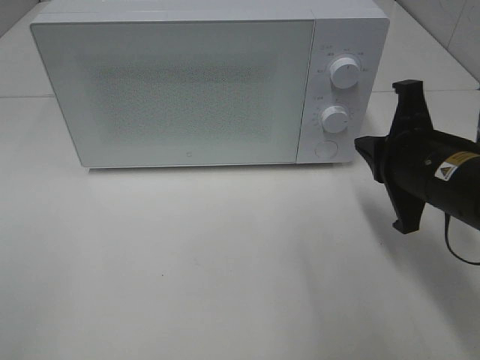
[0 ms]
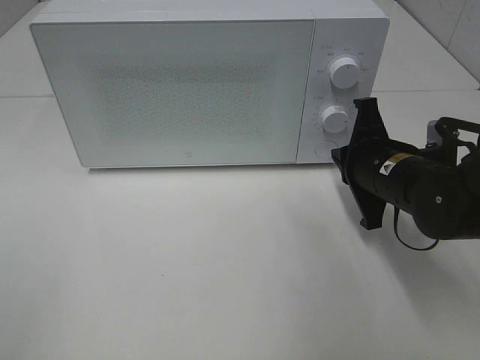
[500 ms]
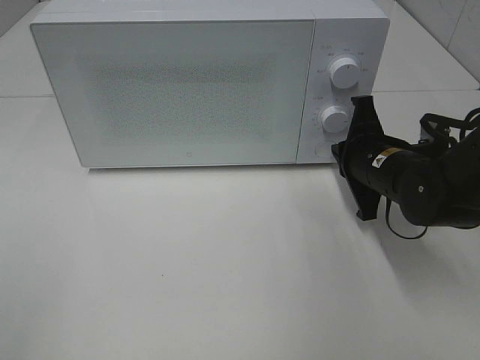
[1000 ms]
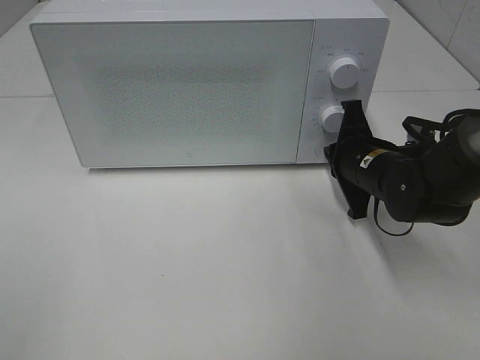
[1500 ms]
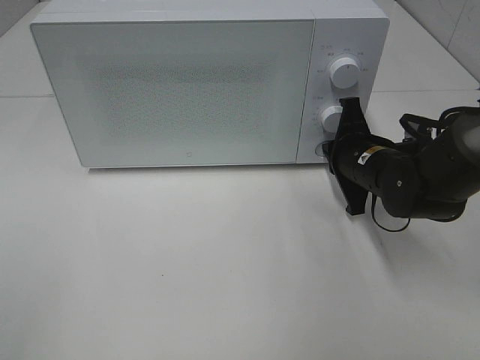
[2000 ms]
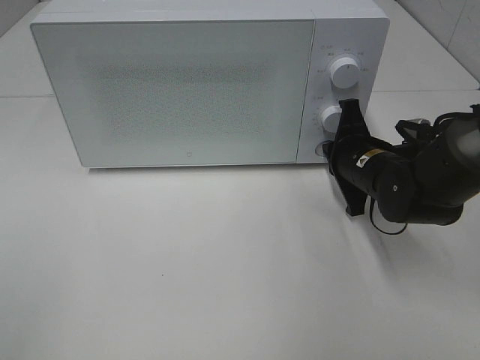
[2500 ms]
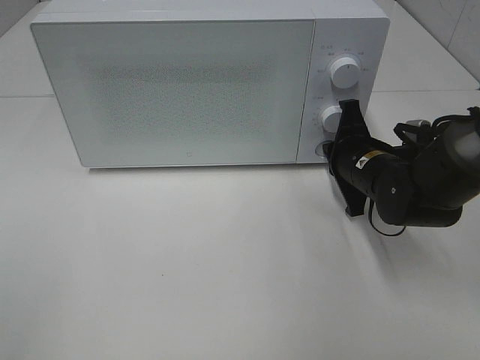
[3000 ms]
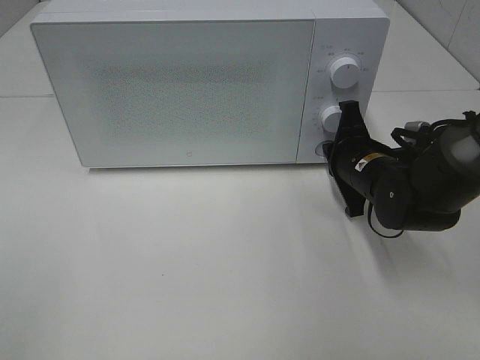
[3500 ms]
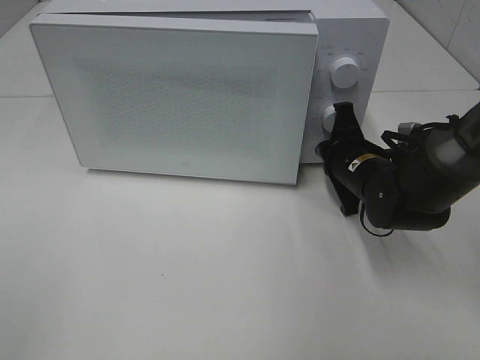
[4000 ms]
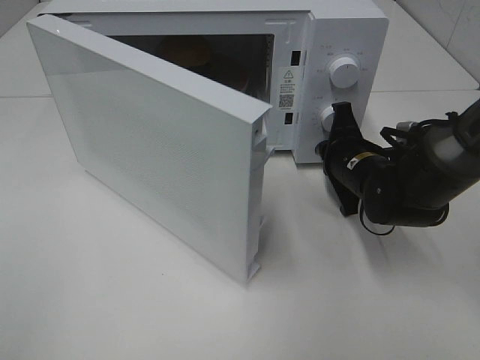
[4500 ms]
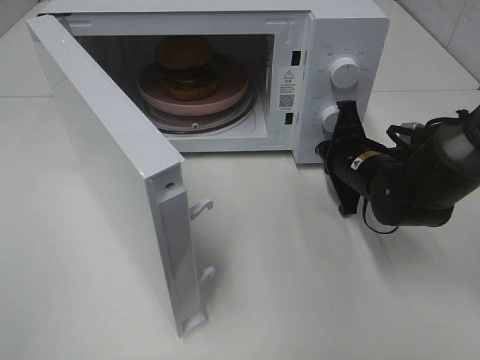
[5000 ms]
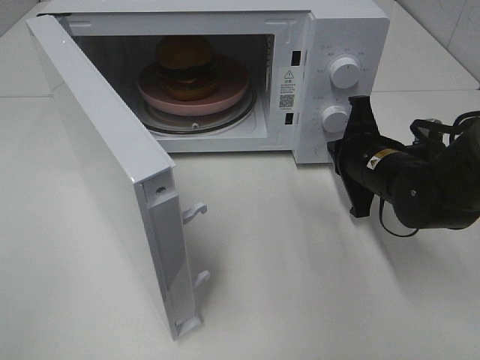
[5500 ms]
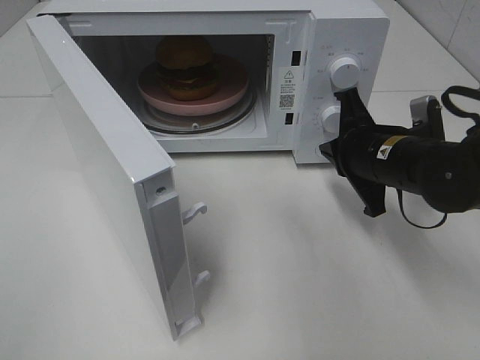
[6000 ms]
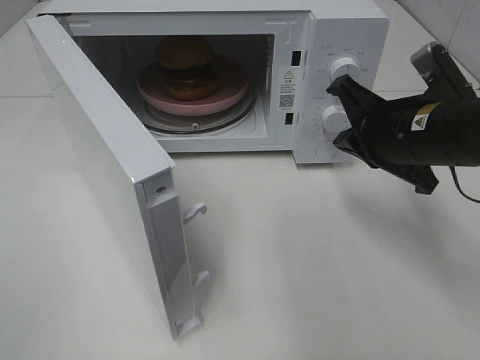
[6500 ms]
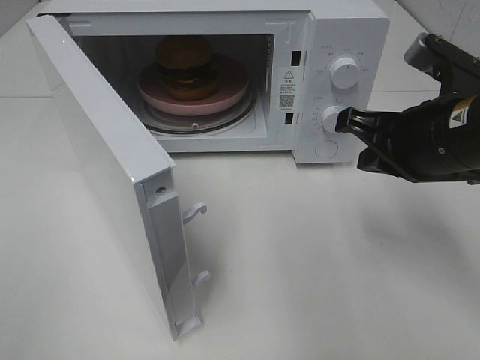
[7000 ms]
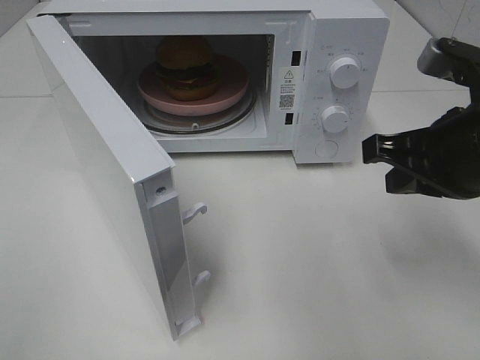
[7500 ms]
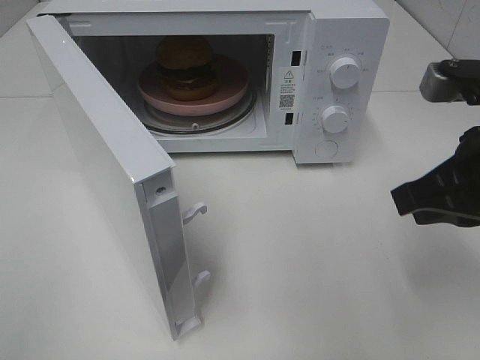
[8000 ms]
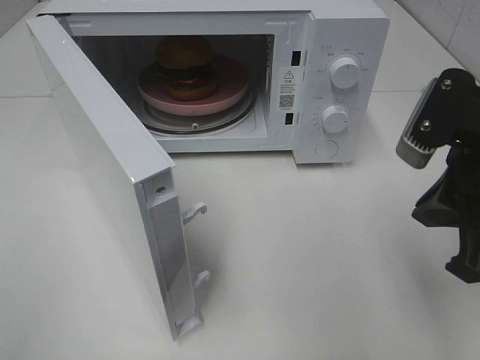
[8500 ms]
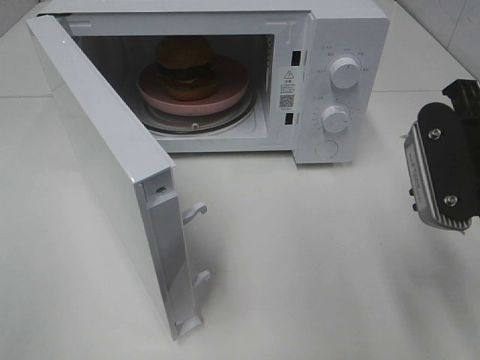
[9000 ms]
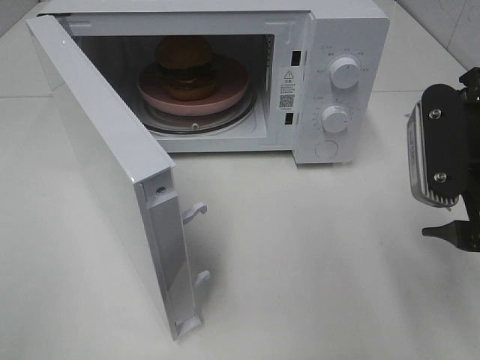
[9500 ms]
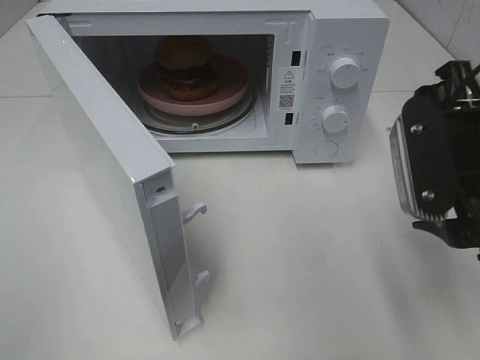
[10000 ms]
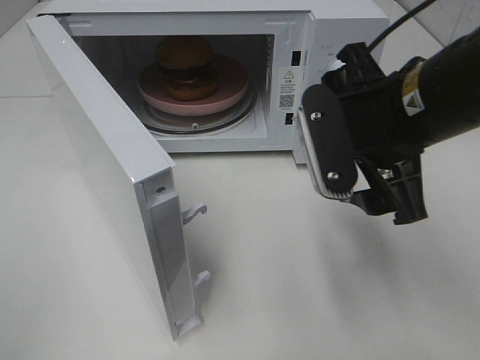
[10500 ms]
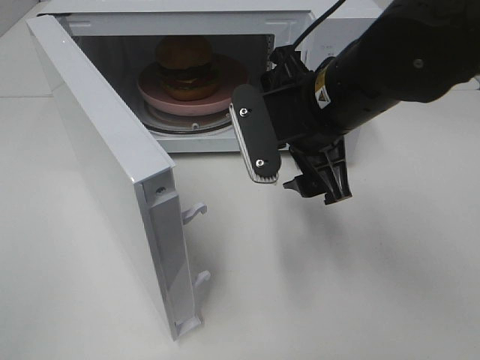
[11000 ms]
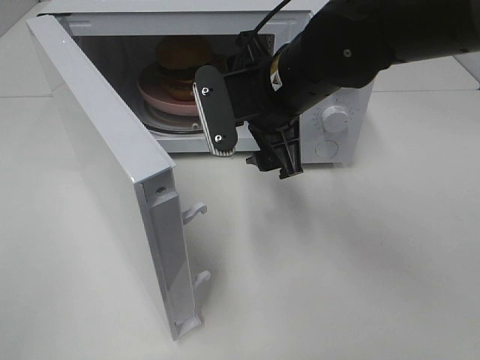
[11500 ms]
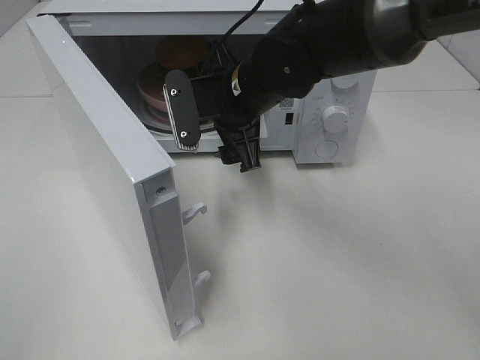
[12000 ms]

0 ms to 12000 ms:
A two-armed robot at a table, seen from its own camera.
Task of the whole recording: Heat the burger.
Step, 0 ms to 5000 ms: Right hand: press the switch.
0 ms to 2000 ms: The right gripper goes approximately 10 cm forward and downward.
2000 ms to 4000 ms: The grippers make only small movements.
4000 ms to 6000 ms: The right gripper is displaced upward by roughly 5 cm.
6000 ms to 8000 ms: The right gripper goes some 15 cm backward and upward.
8000 ms to 10000 ms: The right gripper opens.
10000 ms to 12000 ms: The right gripper is displaced to the left and forward by some 25 cm.

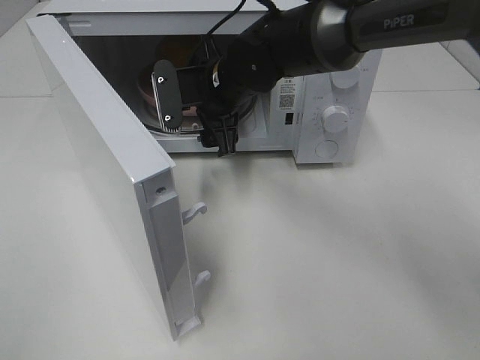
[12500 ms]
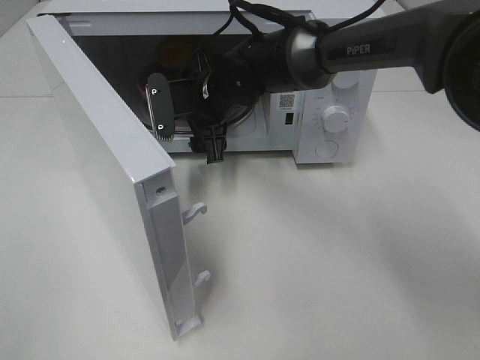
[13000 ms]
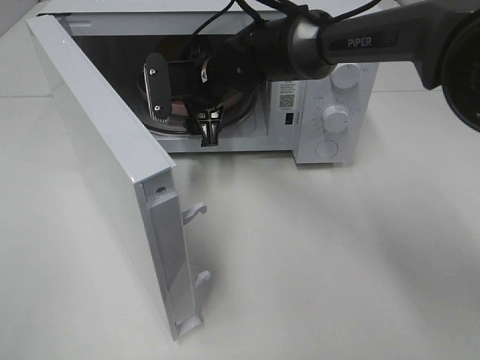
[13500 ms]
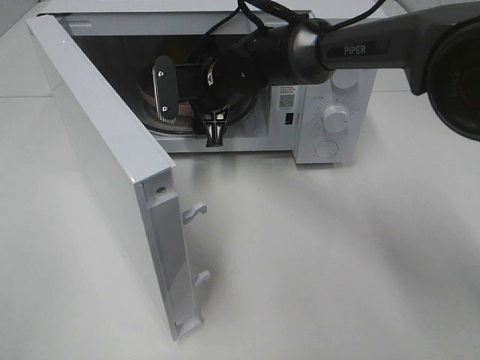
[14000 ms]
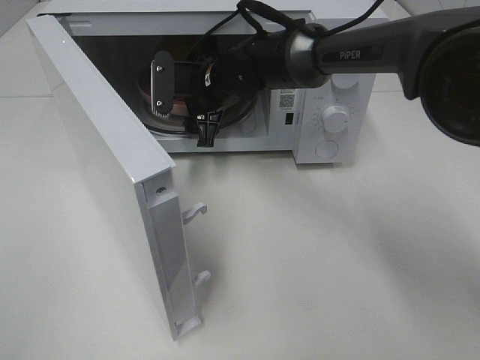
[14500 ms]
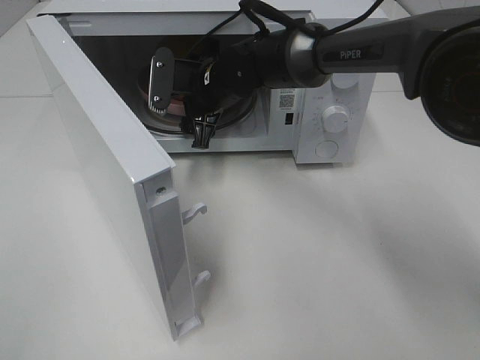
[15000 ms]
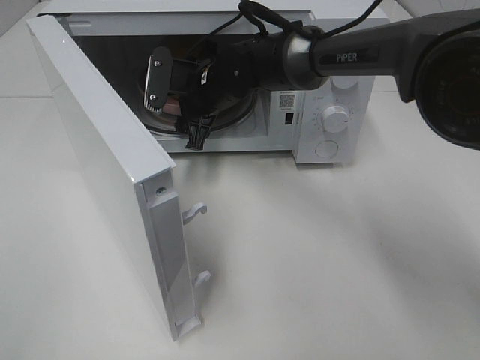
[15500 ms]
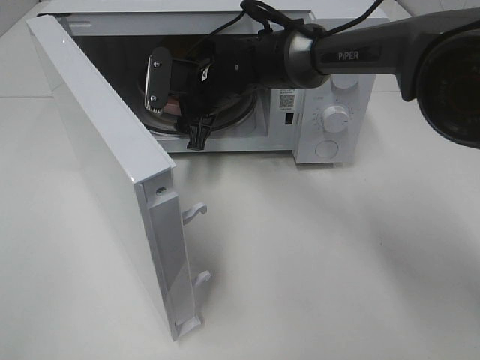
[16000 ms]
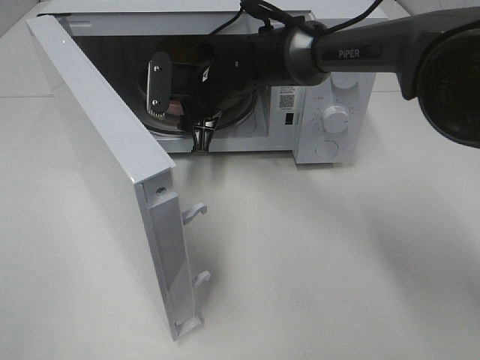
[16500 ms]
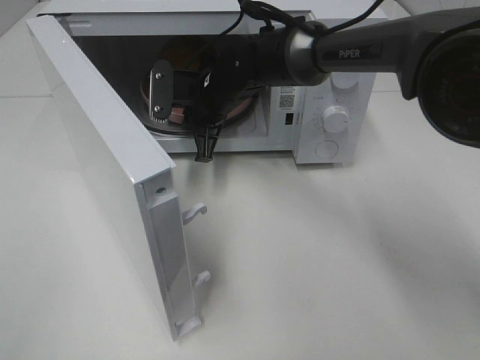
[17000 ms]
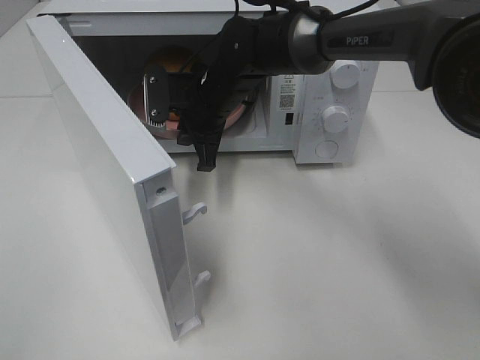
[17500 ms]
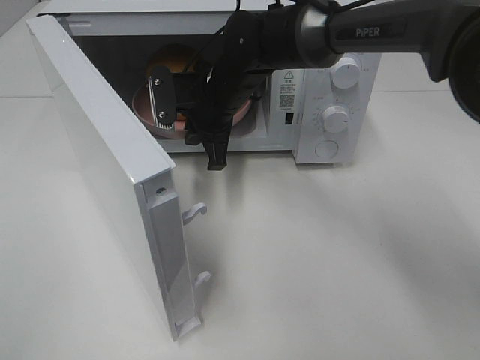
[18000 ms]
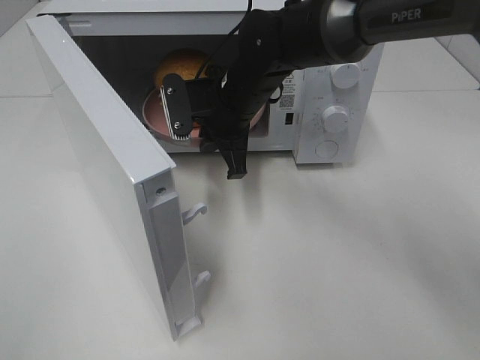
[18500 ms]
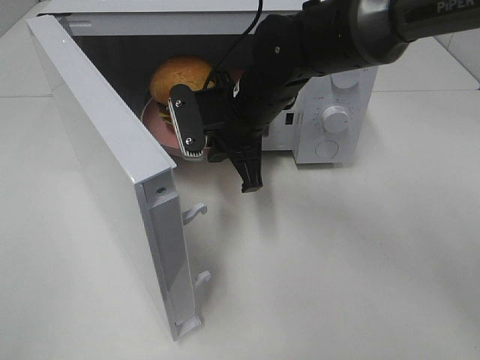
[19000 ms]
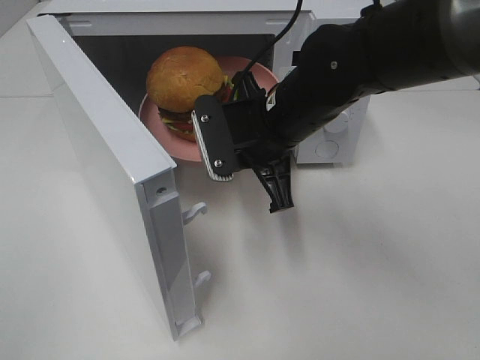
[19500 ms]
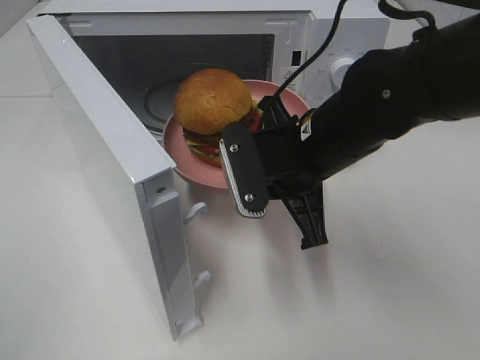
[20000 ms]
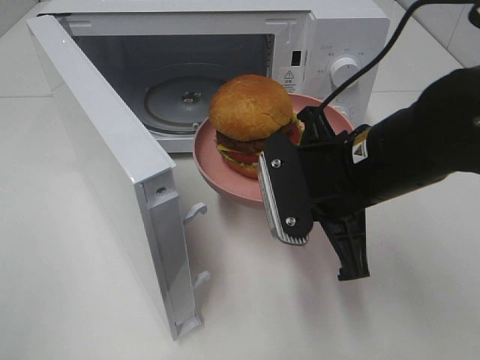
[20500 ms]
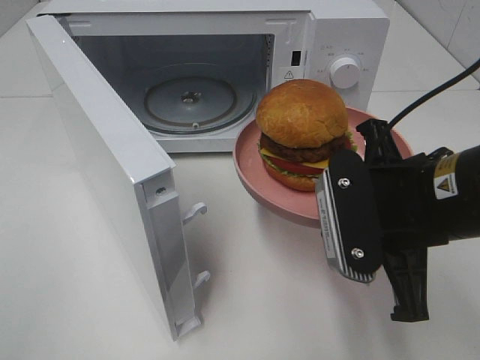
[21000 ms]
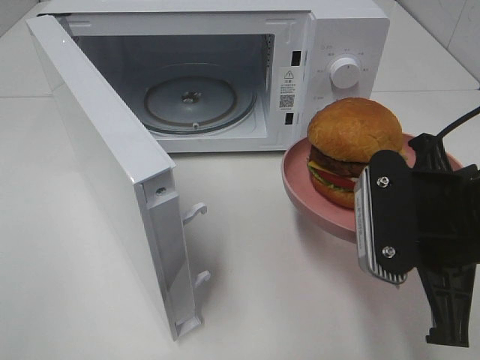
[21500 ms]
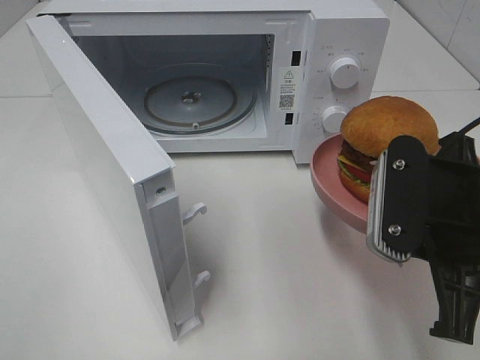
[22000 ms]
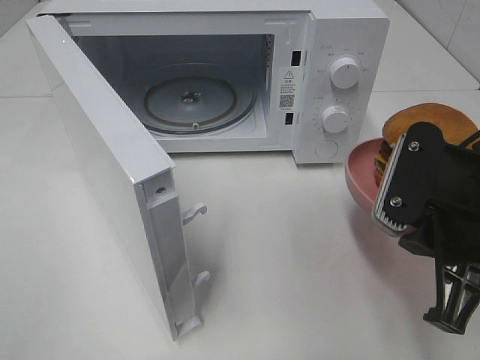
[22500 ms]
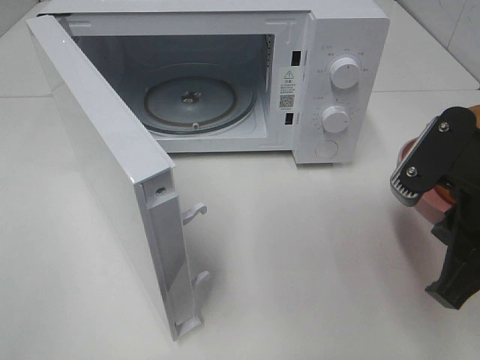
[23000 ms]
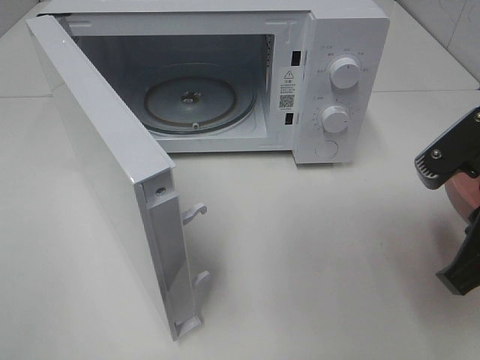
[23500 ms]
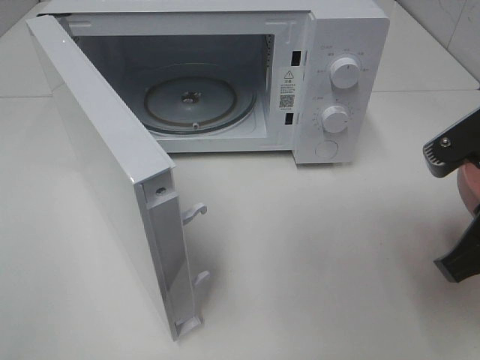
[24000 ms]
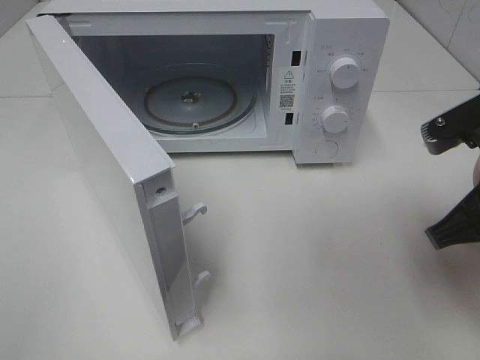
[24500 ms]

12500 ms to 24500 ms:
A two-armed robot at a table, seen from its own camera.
Task of the whole recording: Heat the burger.
Step, 12500 ms to 16500 ms: Right hand: grab the plate with the hamburger.
12500 ms to 14500 ms: The right gripper changes place by roughly 5 cm.
14500 ms to 16500 ms: There are only small adjustments of the grippers.
16500 ms to 18500 ms: The right gripper moves roughly 5 cm, and closes its fingers.
18500 ms to 20500 ms: The right gripper travels backward and to the right by roughly 20 cm.
20500 ms to 22500 ms: The right gripper is displaced to the right and backward by about 10 cm.

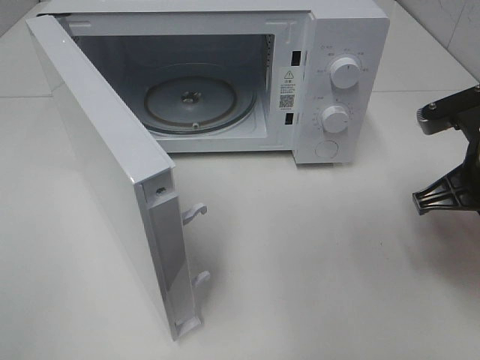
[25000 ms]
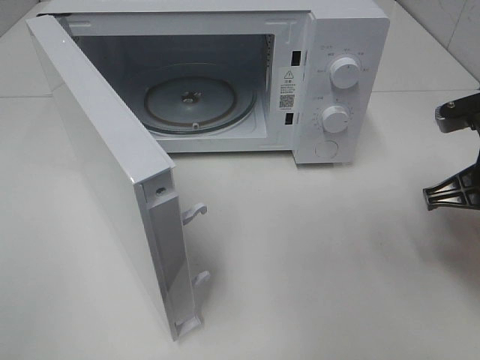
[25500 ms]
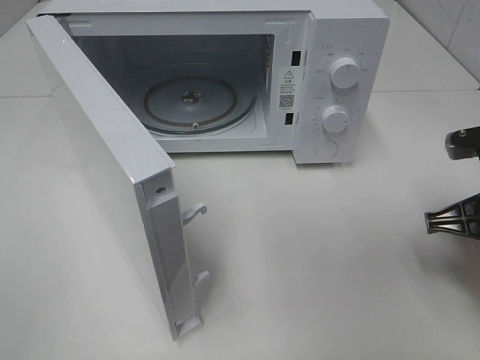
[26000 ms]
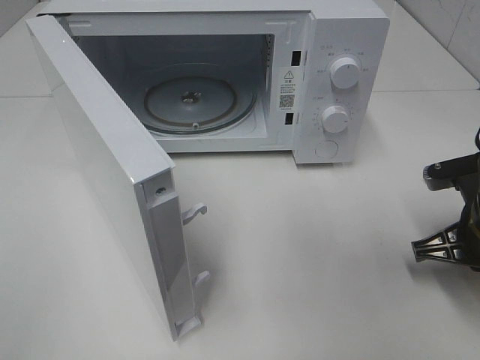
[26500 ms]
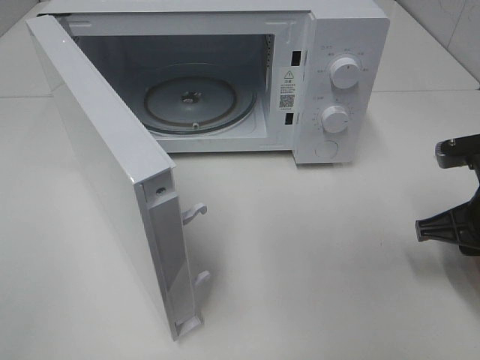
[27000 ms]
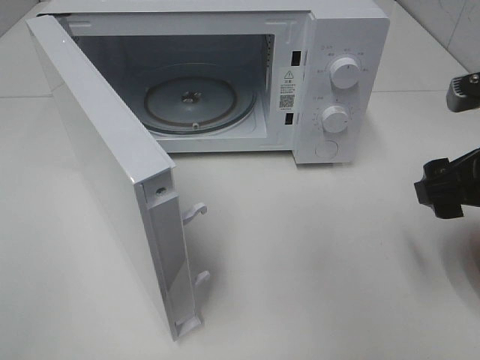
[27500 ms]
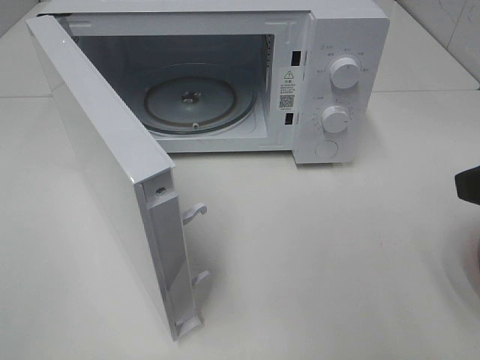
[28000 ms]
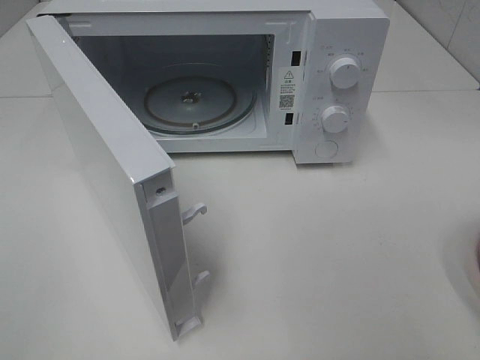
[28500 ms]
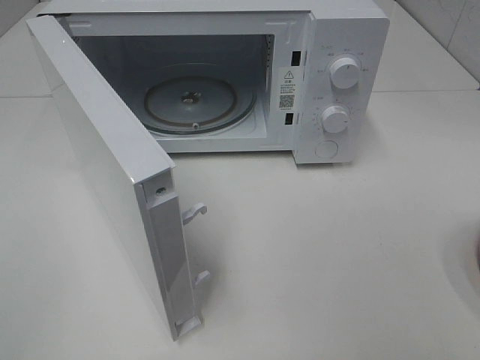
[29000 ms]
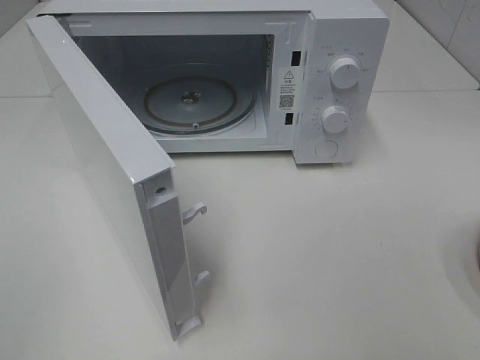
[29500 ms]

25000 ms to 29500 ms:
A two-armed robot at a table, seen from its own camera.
Task of the whole recording: Heat the burger.
25000 ms to 27000 ms: The right gripper opens.
27000 ms to 29500 ms: The right gripper shifts about 25 cm backward and upward.
